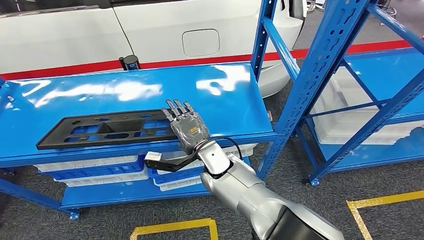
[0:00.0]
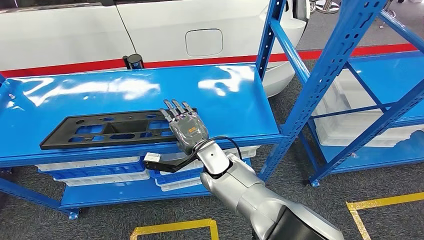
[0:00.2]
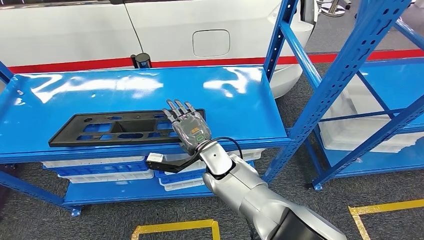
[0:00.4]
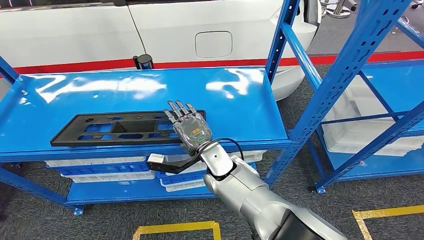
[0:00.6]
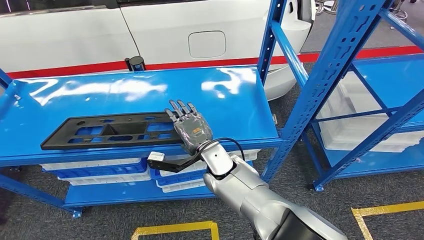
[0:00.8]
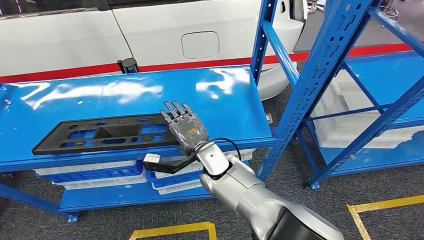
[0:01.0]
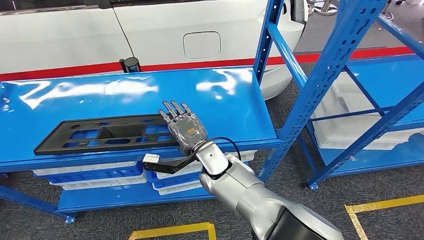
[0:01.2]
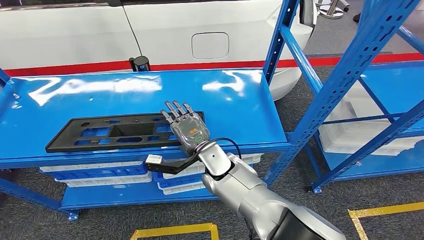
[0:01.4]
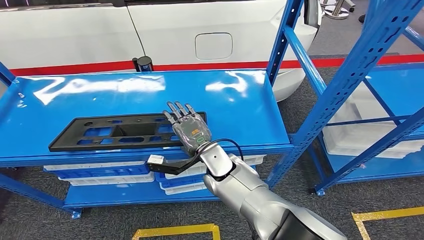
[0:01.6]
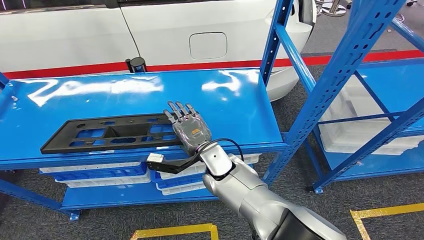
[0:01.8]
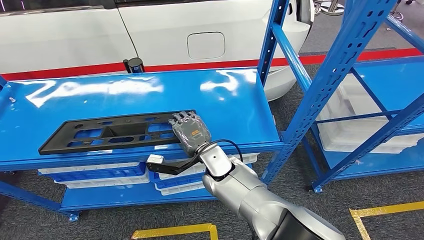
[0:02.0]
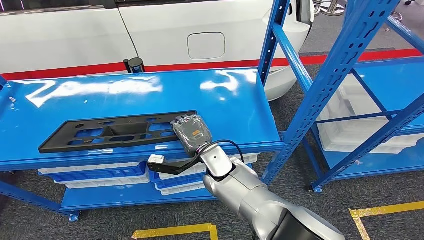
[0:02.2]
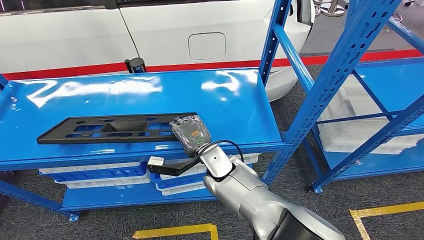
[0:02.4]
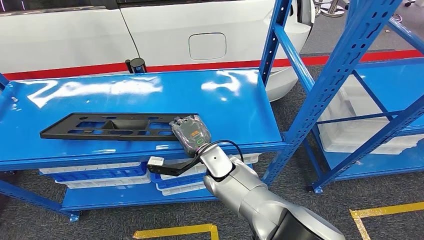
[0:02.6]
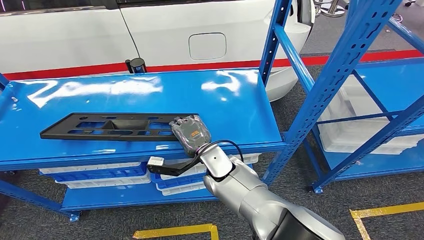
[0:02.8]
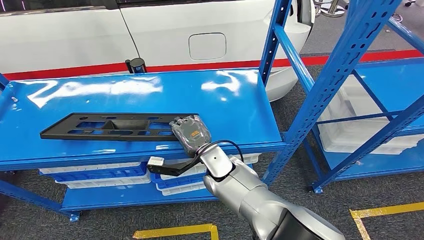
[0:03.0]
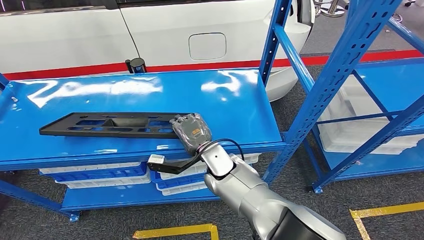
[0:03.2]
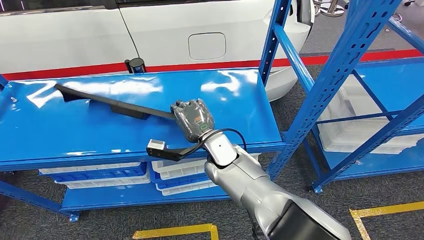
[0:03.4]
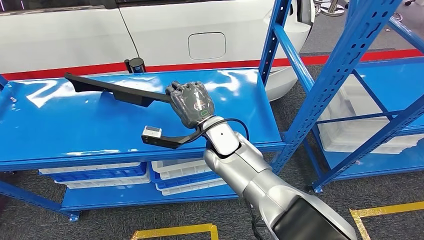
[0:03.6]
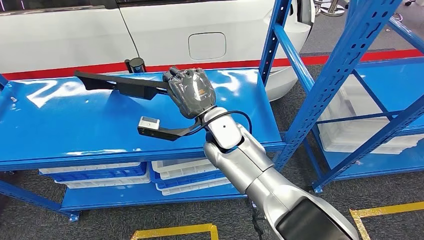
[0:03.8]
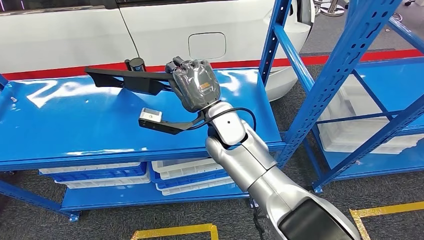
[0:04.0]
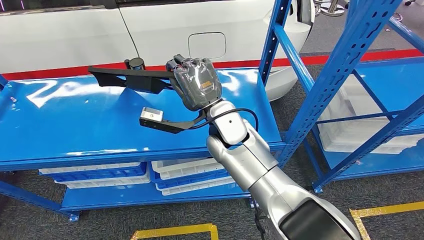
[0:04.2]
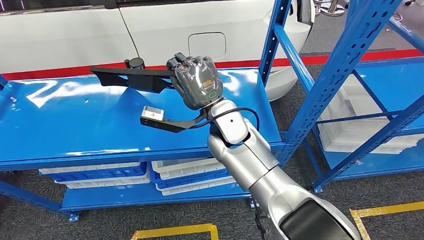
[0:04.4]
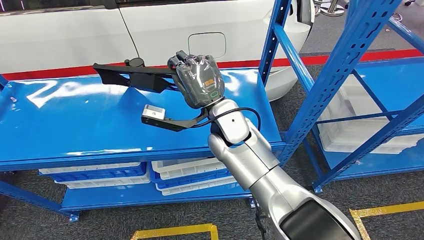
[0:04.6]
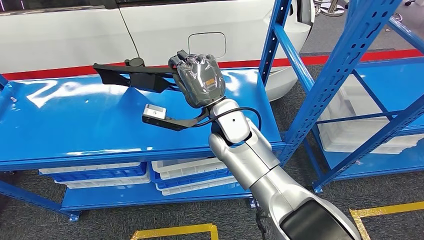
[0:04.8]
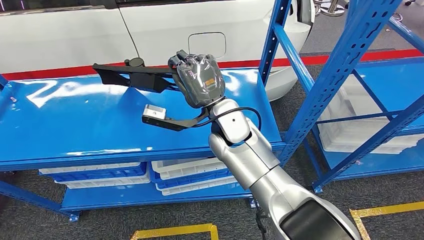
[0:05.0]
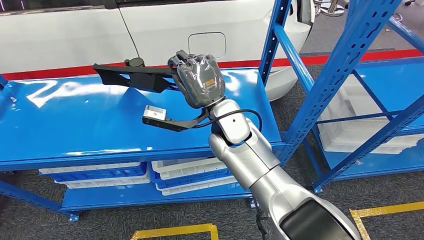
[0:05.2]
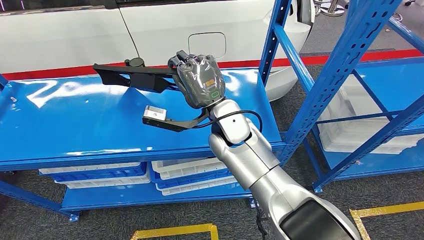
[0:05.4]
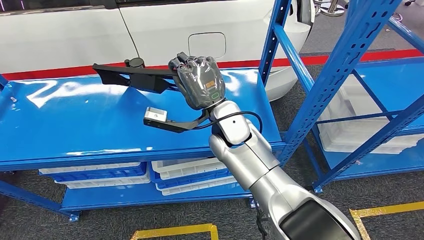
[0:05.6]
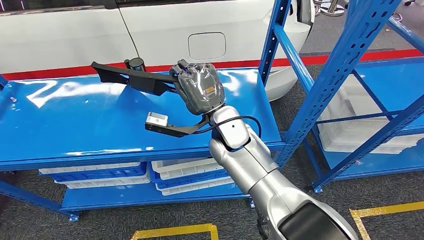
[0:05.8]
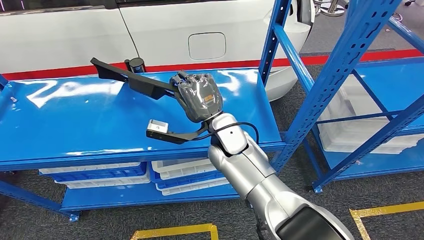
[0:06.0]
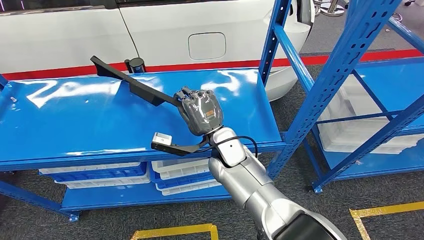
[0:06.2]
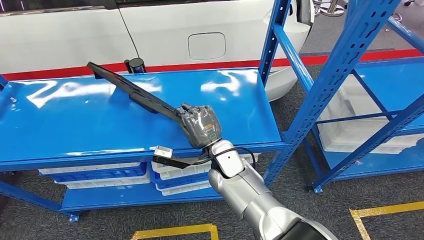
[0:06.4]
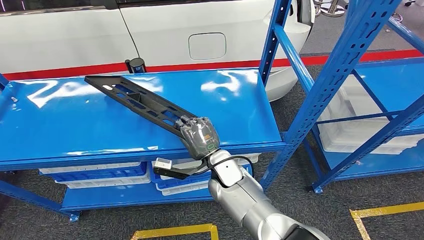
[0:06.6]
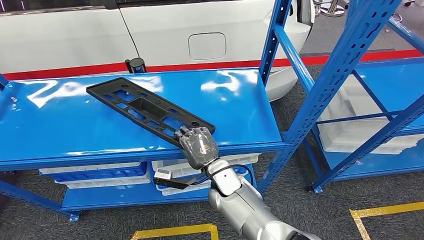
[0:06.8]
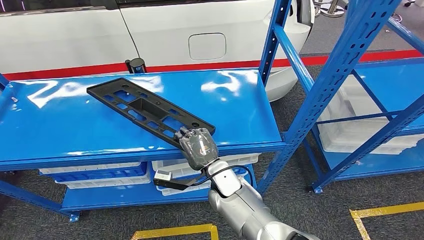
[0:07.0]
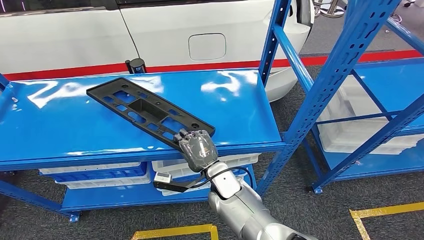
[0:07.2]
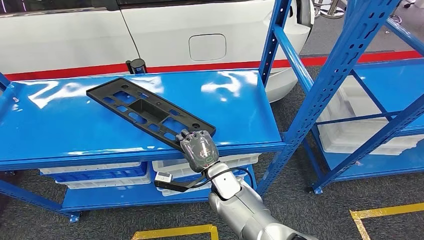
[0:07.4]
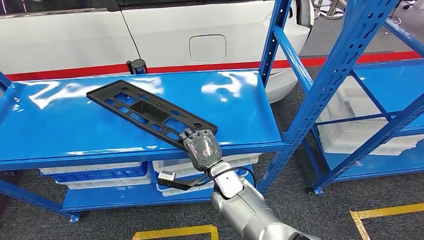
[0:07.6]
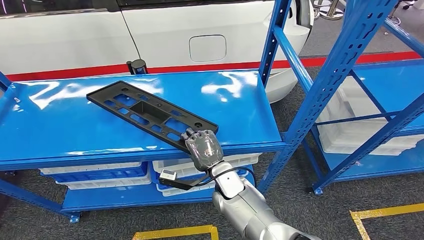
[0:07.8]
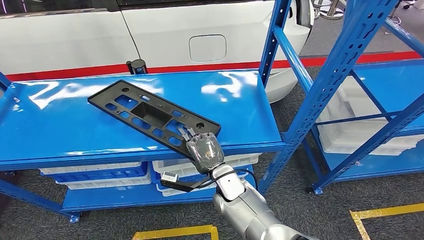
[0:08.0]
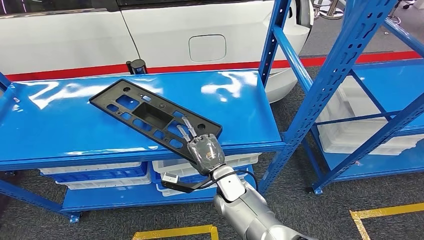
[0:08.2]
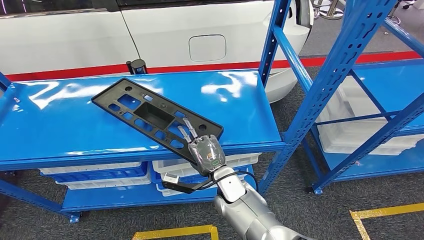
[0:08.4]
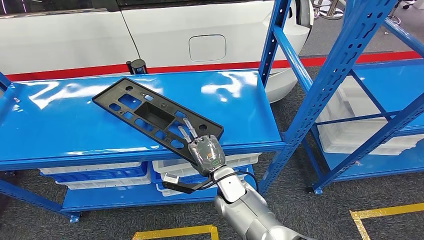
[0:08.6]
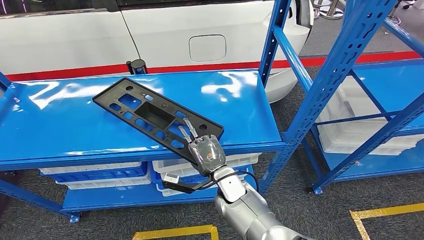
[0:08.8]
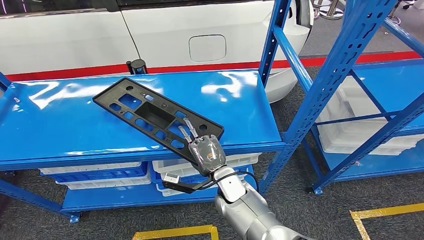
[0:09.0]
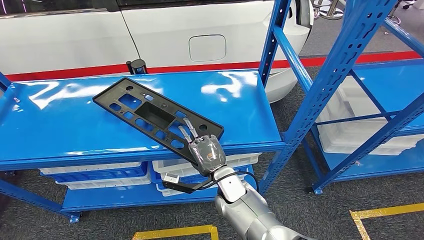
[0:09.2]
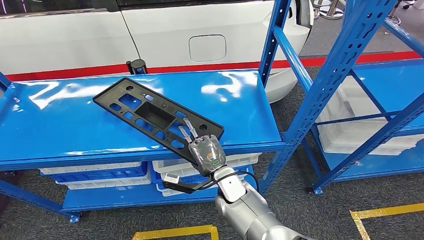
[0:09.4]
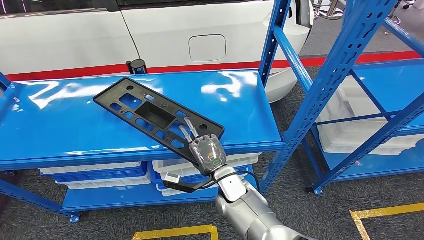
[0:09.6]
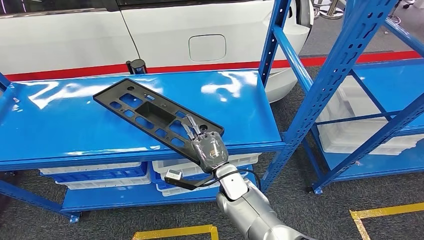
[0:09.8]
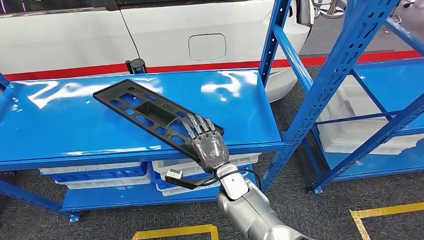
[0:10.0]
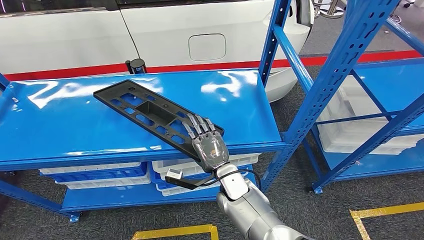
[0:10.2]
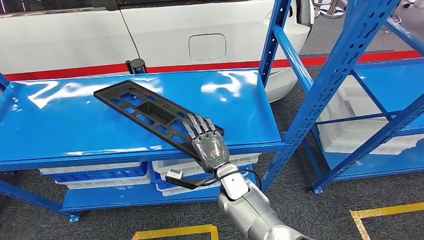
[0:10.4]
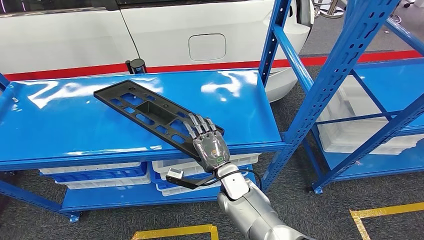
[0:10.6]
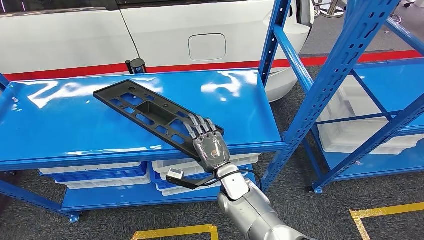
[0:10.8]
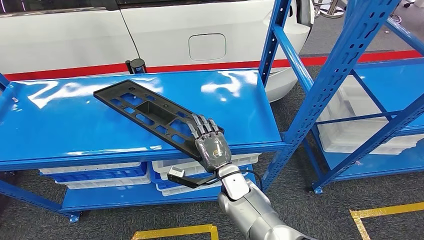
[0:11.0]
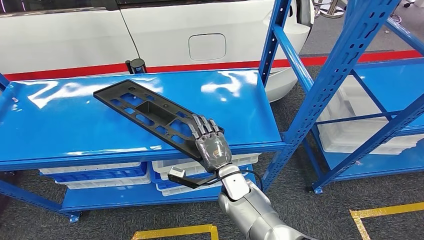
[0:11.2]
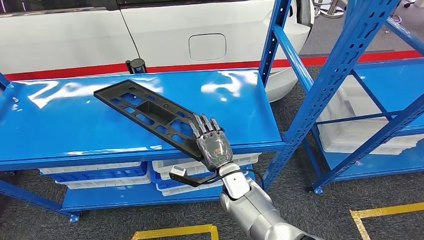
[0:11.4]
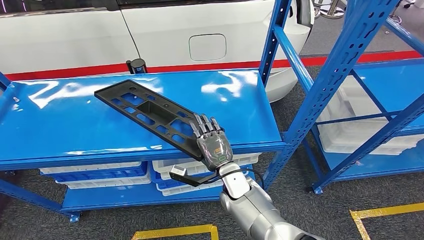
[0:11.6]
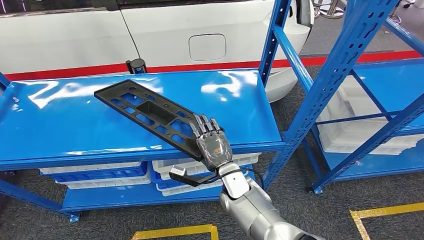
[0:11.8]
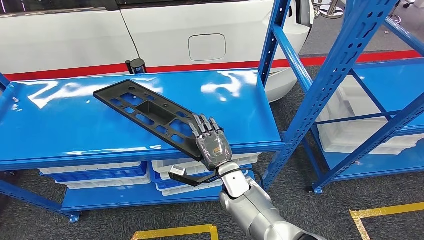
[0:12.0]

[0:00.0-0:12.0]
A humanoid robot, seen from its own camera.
0:03.0 to 0:04.4: The right hand is displaced upward by approximately 15 cm.
0:04.4 to 0:06.0: The hands make only small movements.
0:07.6 to 0:09.0: The hands make only small movements.
0:09.0 to 0:10.4: The two hands keep their place.
0:10.4 to 0:12.0: The hands move only a little.

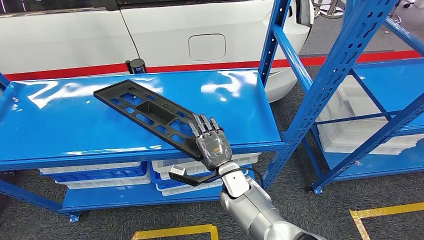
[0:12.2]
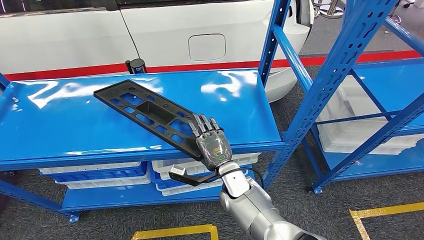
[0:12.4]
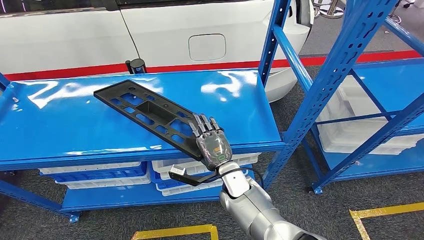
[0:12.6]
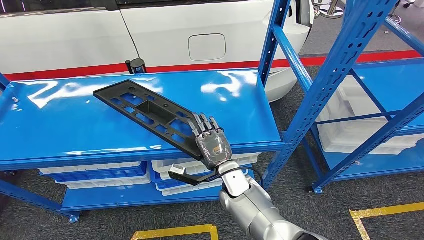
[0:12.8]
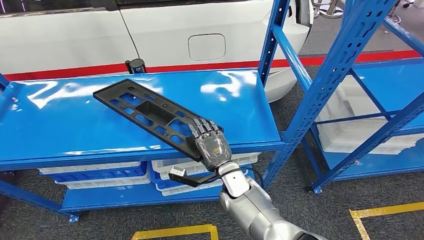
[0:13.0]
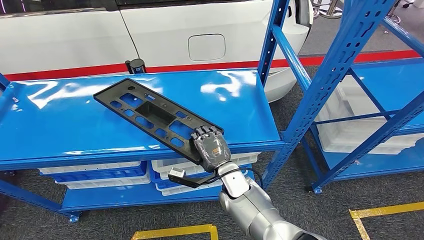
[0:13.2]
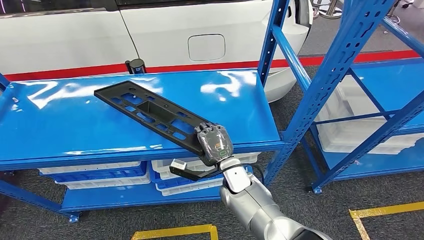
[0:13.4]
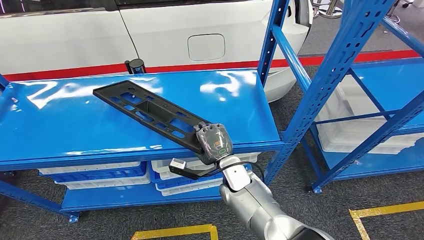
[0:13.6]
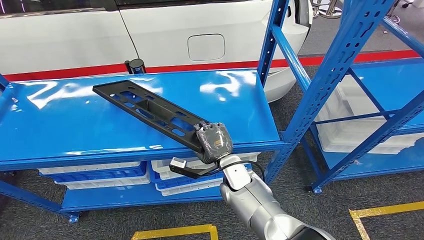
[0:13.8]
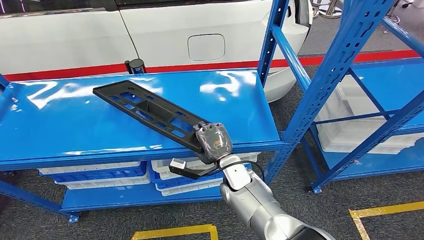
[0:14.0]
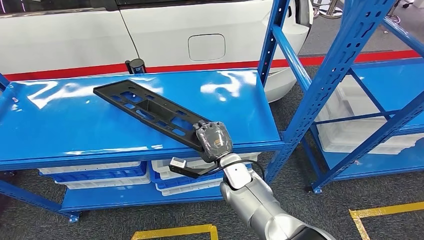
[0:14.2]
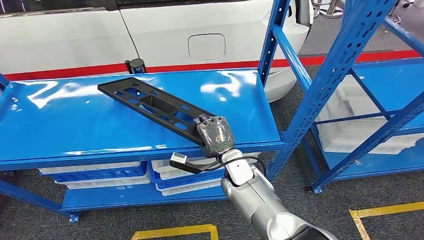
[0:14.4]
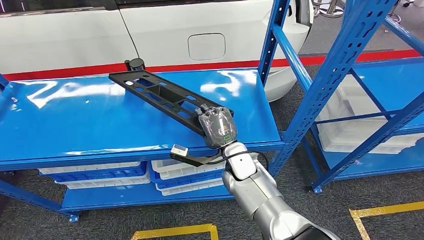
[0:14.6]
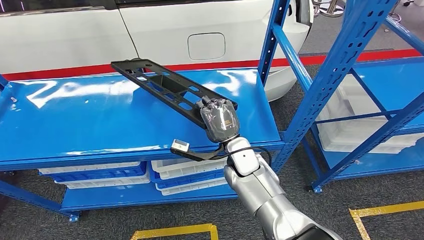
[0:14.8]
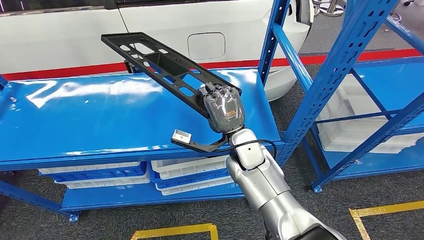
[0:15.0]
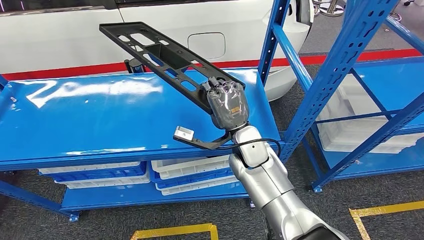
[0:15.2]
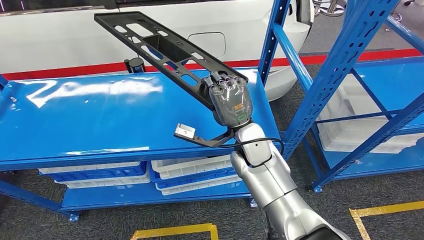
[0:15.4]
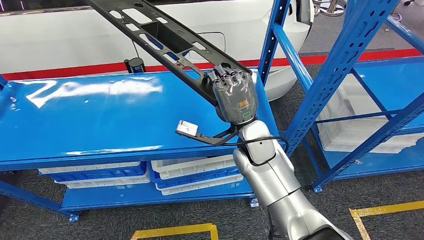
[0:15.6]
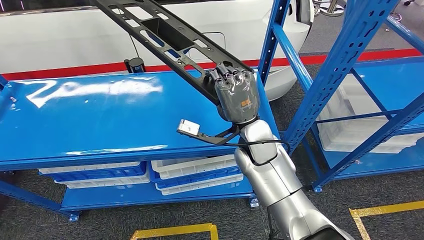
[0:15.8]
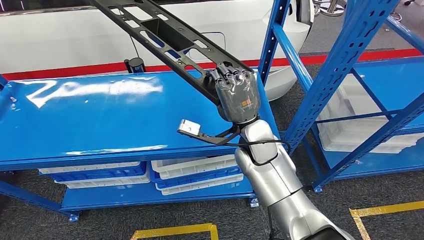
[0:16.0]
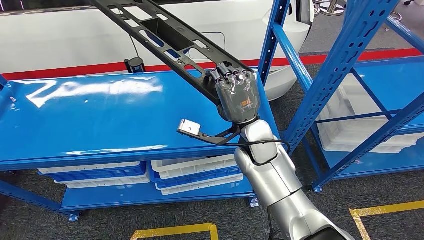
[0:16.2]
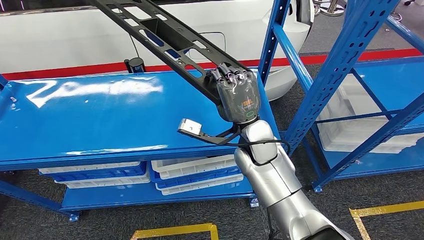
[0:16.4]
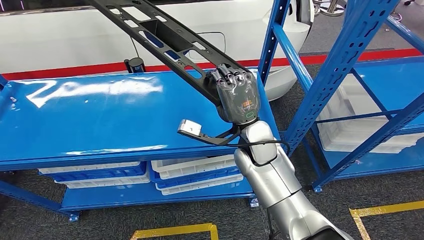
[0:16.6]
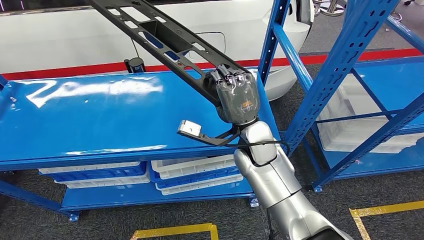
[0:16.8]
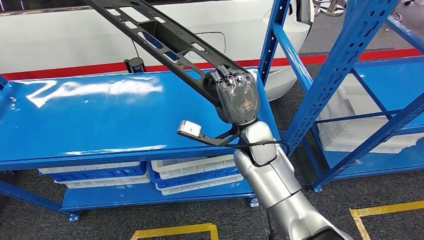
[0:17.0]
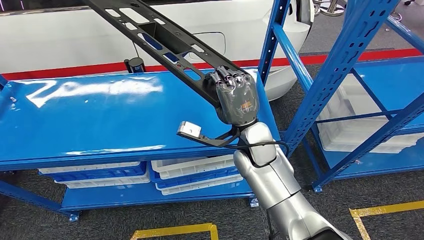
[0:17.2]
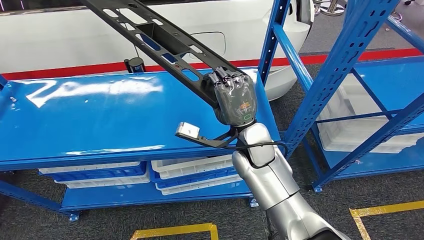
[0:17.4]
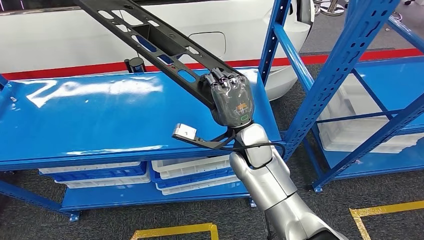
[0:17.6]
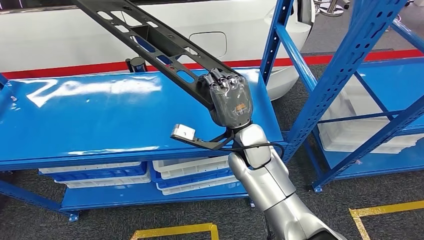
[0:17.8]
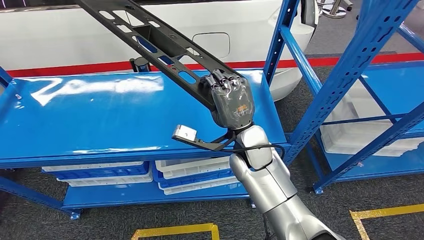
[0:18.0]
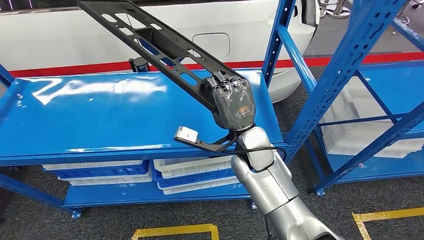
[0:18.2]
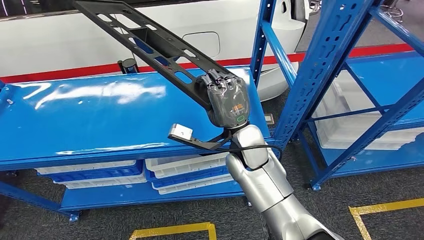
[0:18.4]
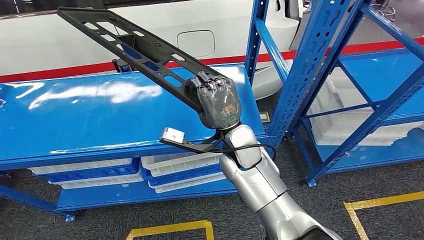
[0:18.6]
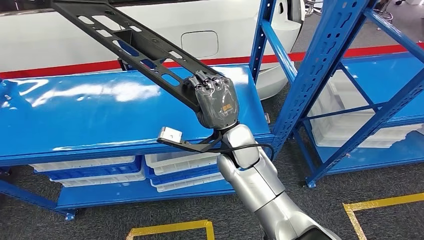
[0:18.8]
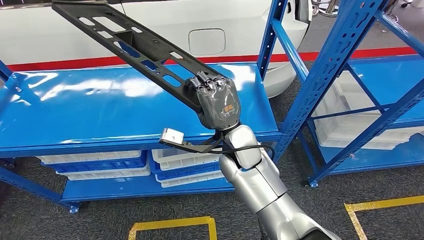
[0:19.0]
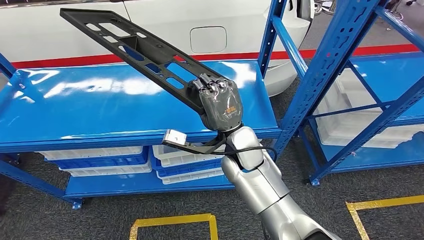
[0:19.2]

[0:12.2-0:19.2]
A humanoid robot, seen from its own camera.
Step, 0:12.2 to 0:15.6: Pick up the large material from the shelf.
0:12.2 to 0:13.6: The hands stay close to where they were, moving slightly.
0:15.0 to 0:17.8: The hands stay close to where they were, moving slightly.
